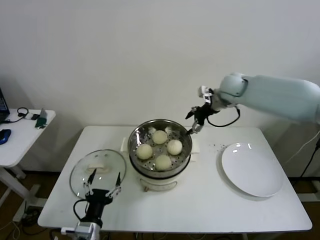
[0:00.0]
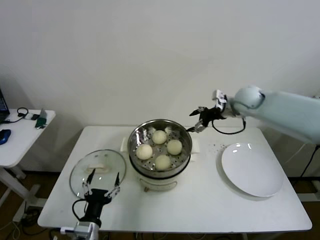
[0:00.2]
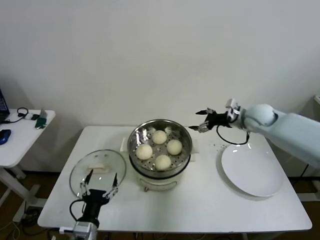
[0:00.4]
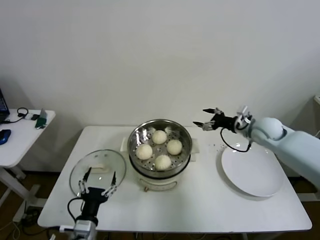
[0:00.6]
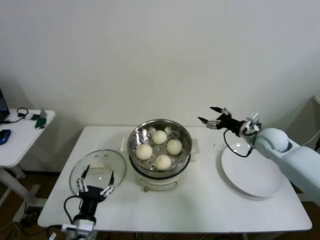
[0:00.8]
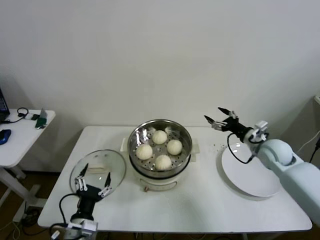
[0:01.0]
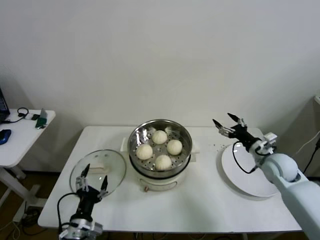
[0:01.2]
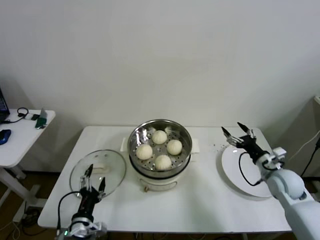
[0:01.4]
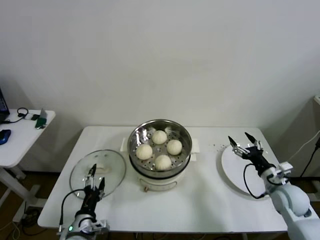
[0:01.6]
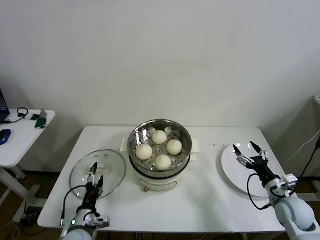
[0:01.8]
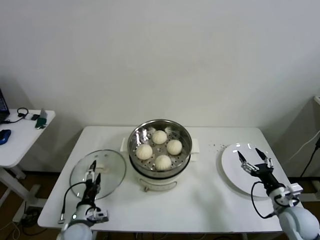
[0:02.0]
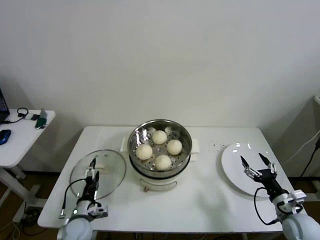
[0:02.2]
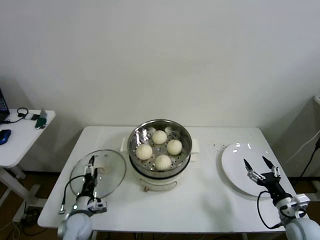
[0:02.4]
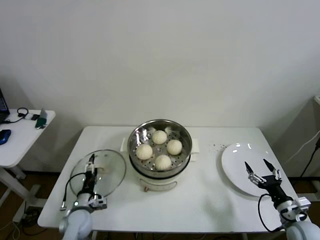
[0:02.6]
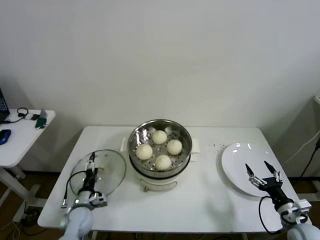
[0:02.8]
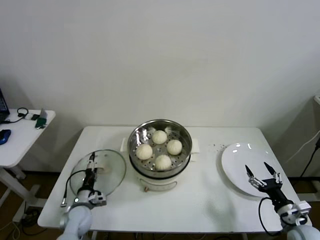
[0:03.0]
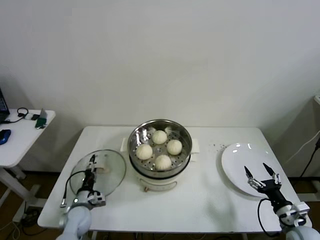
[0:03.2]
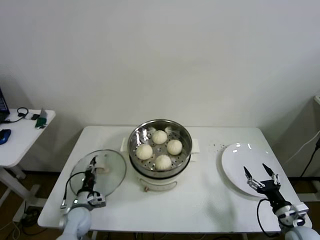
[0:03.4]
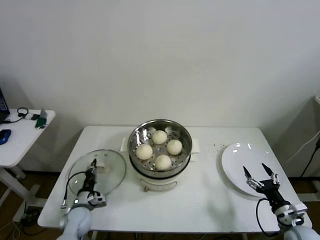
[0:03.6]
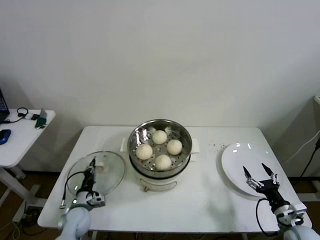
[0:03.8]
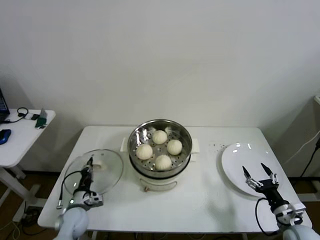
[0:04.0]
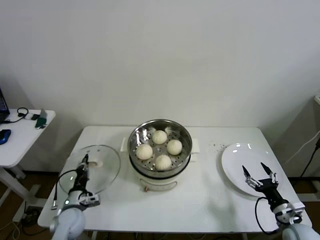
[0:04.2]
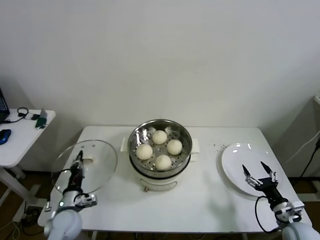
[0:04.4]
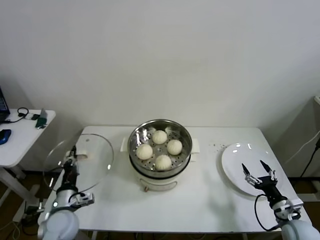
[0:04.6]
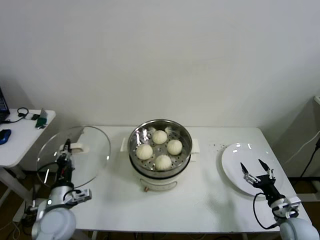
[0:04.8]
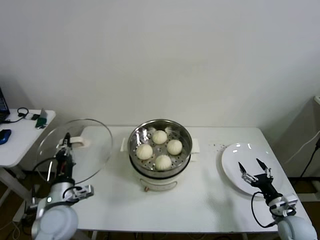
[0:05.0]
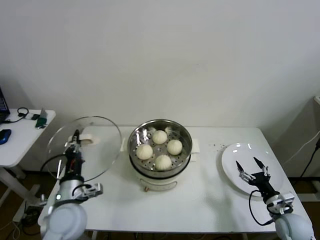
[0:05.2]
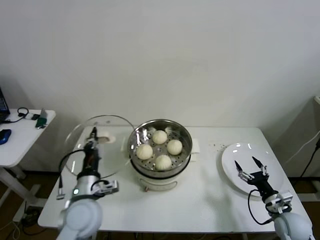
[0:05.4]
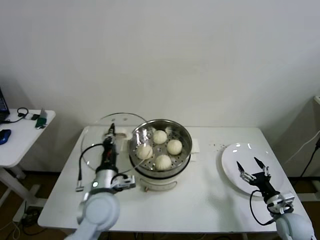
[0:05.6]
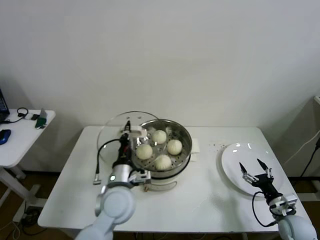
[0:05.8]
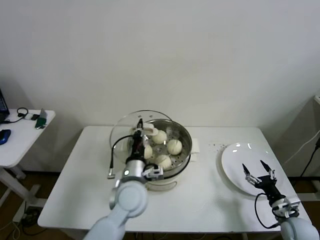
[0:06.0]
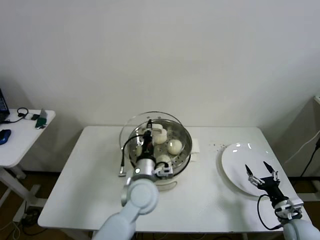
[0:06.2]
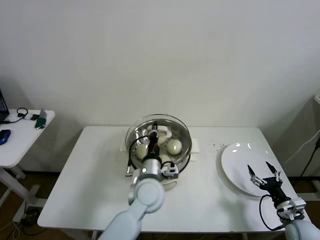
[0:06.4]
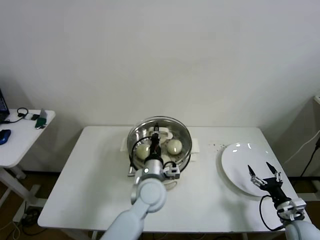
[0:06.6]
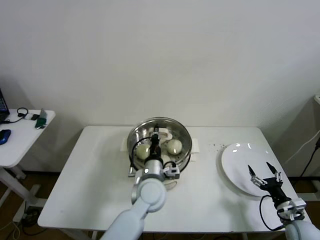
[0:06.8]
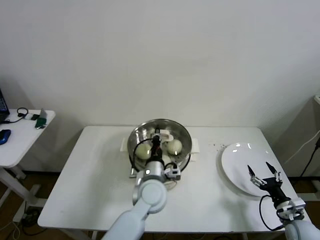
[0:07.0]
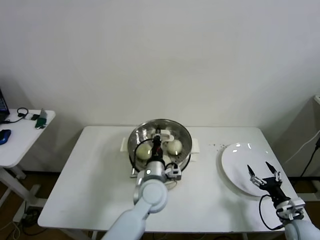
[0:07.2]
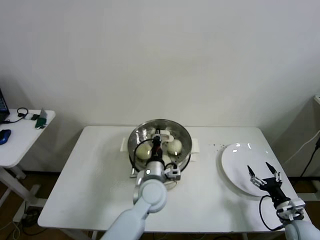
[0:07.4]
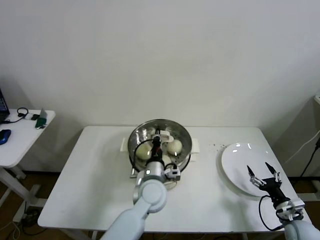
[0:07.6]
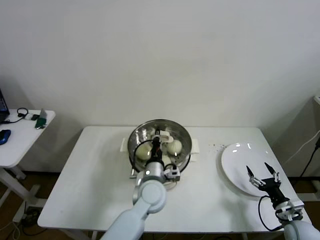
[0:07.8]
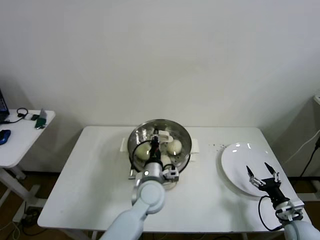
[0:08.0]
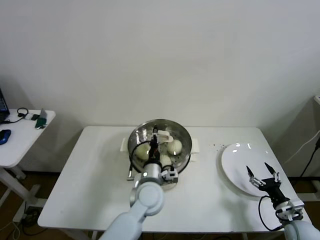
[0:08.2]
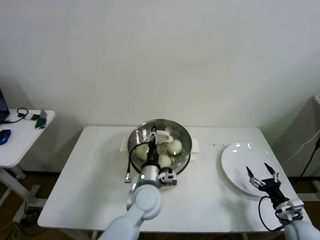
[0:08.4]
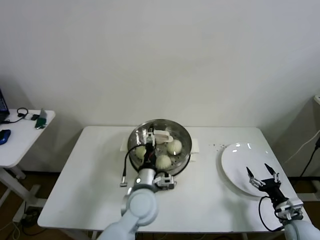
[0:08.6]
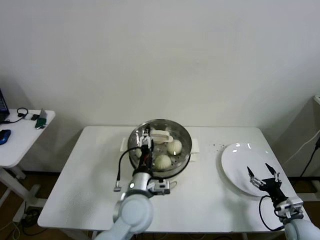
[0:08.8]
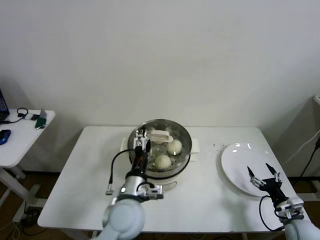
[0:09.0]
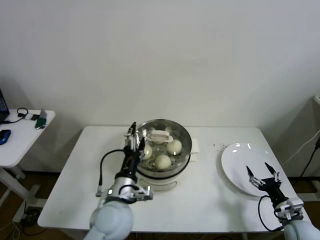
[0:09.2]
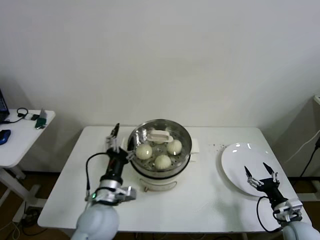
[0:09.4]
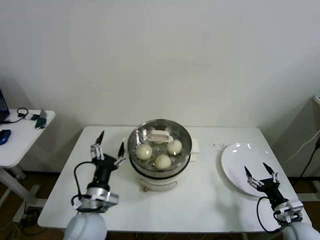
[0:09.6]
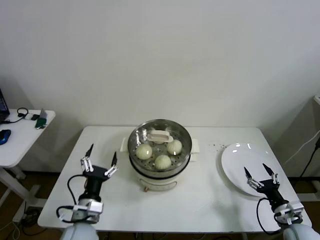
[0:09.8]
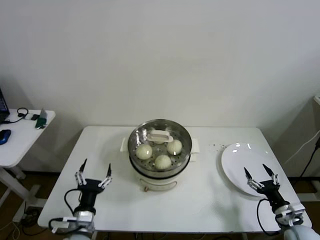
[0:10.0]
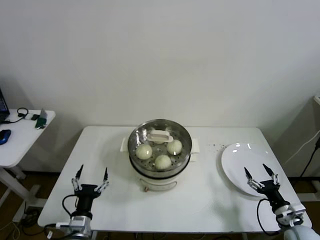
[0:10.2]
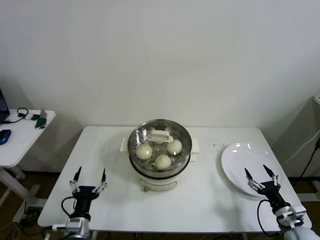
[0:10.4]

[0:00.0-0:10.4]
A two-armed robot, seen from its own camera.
Step, 0:00.0 to 0:03.6: Grasp the pot lid with left gripper.
Step, 0:03.8 to 0:08.8: Place the pot lid on the steamer with left gripper.
0:00.0 to 0:01.4: The right gripper is displaced downward, backward and to the right by some 35 cm.
0:01.4 to 0:03.0: The right gripper goes approximately 15 cm backward and downward. The left gripper moves forward, downward and to the left, approximately 15 cm.
0:03.0 to 0:04.4: The left gripper is displaced upward by roughly 5 cm, and closes.
0:04.4 to 0:06.0: The left gripper heads to the right and upward, covering some 25 cm.
0:06.0 to 0:07.4: The left gripper moves to the right, some 5 cm.
0:07.4 to 0:09.0: The left gripper is displaced backward and to the left by about 10 cm, and opens its fingers.
0:09.0 to 0:10.4: The left gripper is displaced to the left, downward and backward by roughly 25 cm.

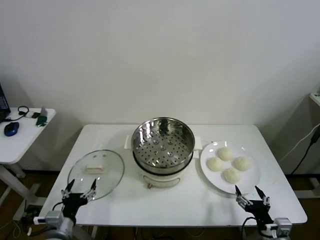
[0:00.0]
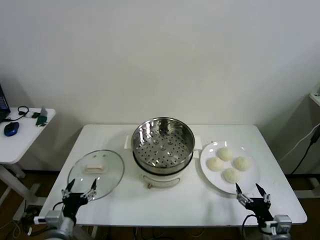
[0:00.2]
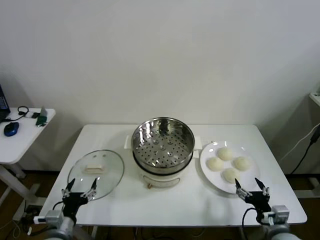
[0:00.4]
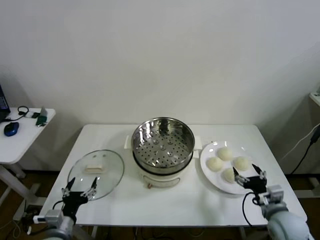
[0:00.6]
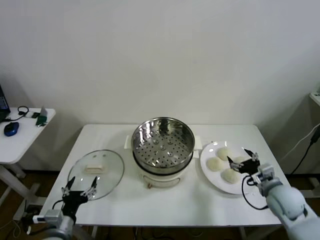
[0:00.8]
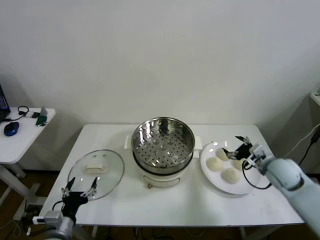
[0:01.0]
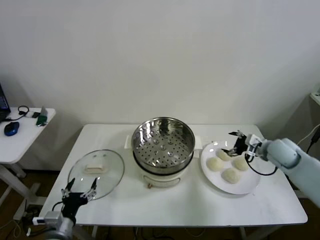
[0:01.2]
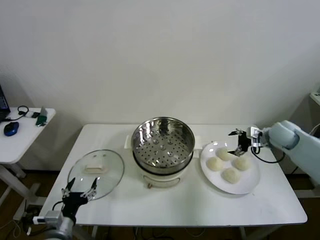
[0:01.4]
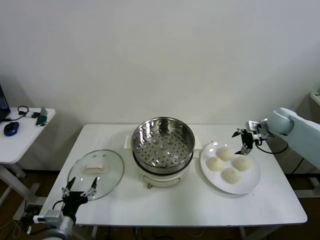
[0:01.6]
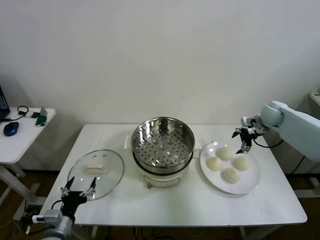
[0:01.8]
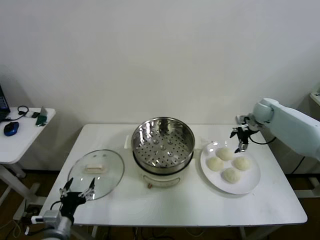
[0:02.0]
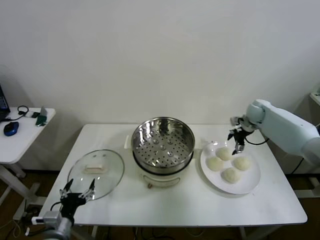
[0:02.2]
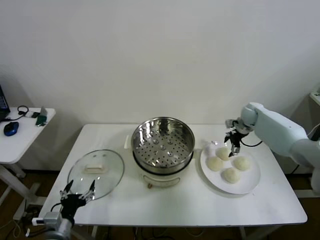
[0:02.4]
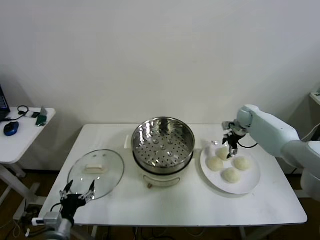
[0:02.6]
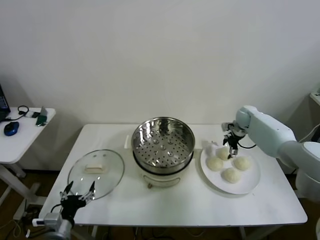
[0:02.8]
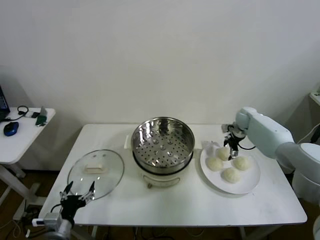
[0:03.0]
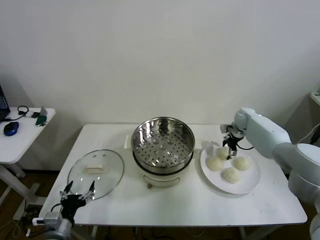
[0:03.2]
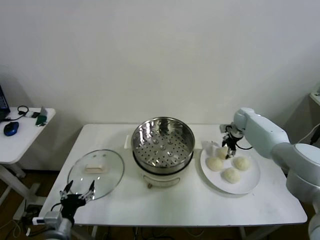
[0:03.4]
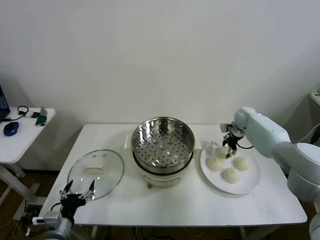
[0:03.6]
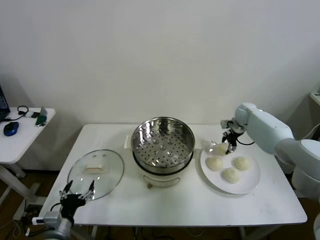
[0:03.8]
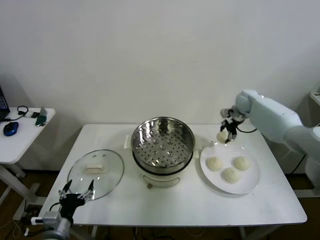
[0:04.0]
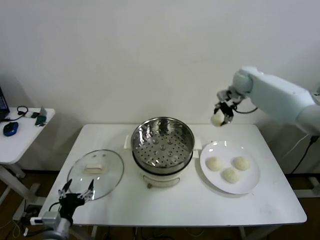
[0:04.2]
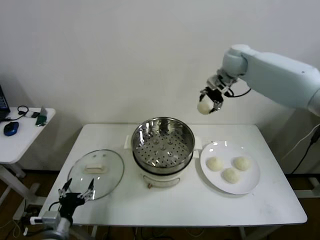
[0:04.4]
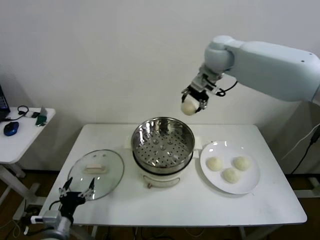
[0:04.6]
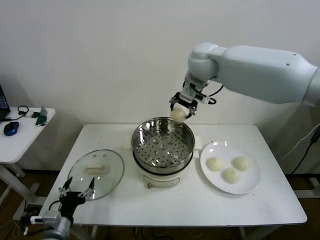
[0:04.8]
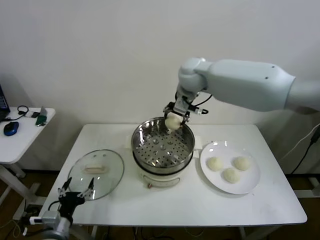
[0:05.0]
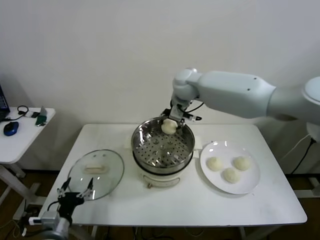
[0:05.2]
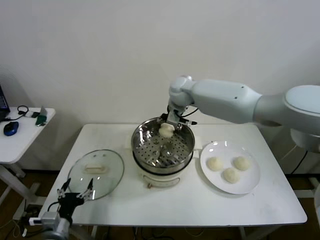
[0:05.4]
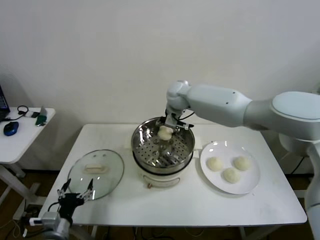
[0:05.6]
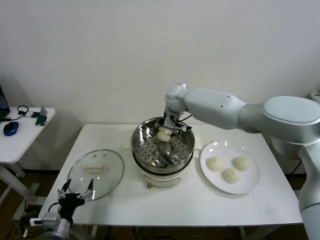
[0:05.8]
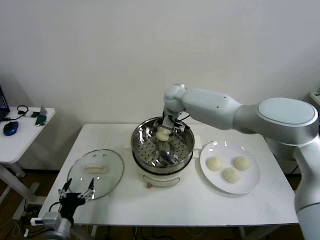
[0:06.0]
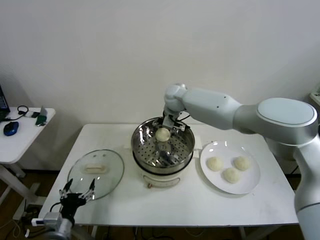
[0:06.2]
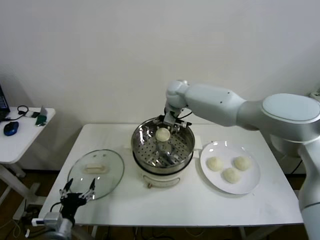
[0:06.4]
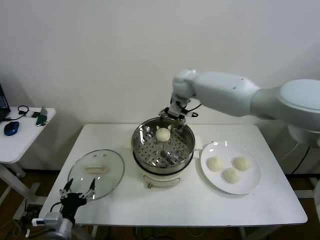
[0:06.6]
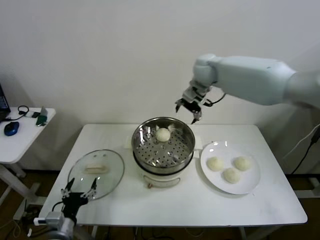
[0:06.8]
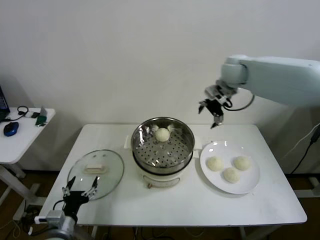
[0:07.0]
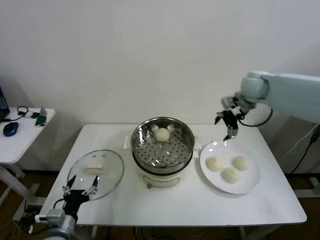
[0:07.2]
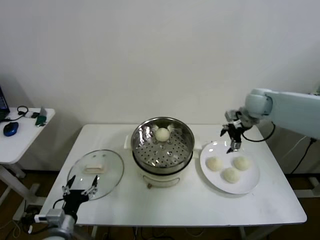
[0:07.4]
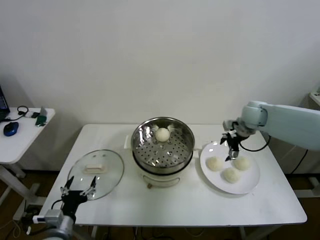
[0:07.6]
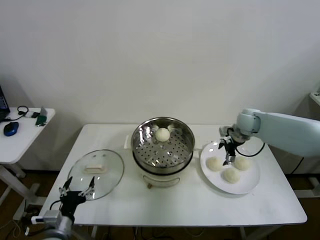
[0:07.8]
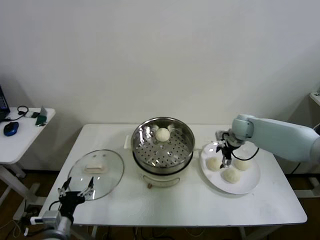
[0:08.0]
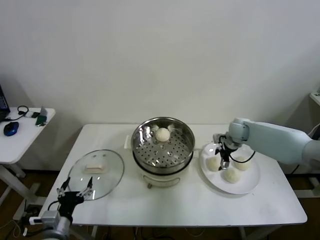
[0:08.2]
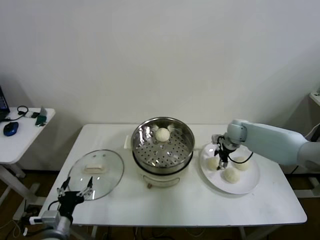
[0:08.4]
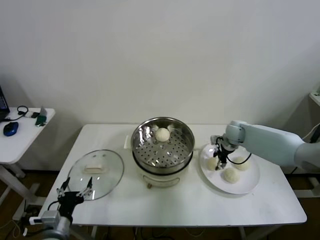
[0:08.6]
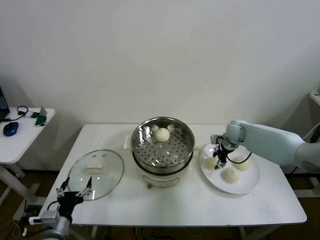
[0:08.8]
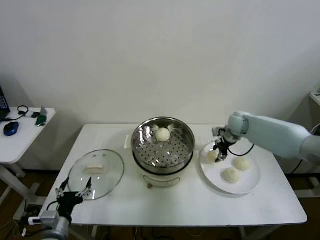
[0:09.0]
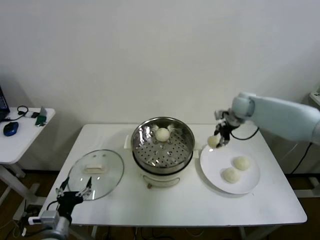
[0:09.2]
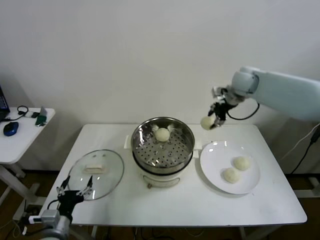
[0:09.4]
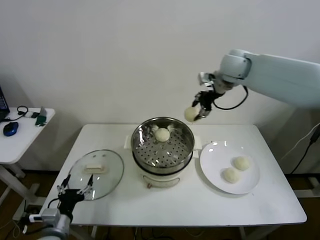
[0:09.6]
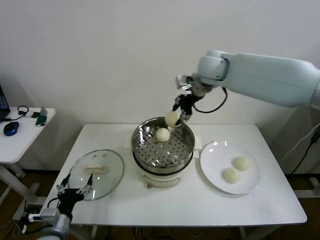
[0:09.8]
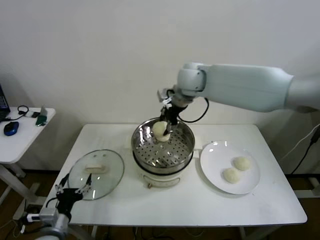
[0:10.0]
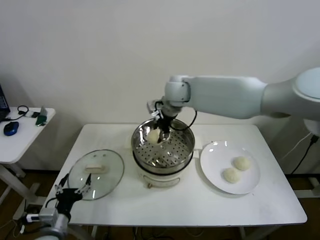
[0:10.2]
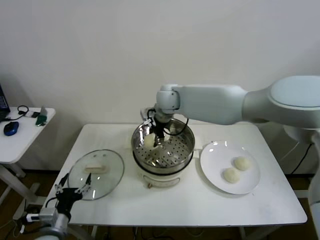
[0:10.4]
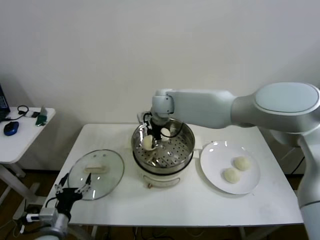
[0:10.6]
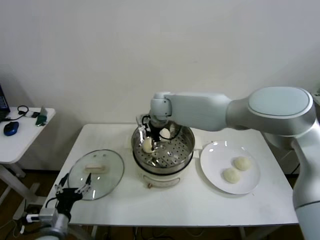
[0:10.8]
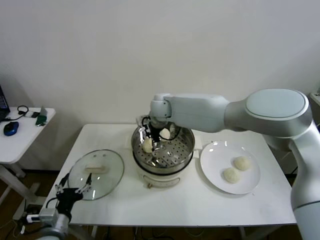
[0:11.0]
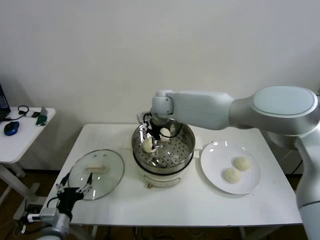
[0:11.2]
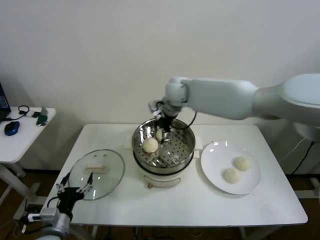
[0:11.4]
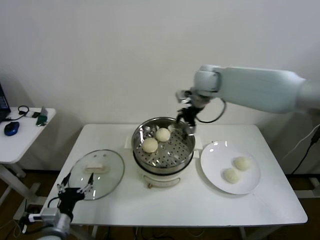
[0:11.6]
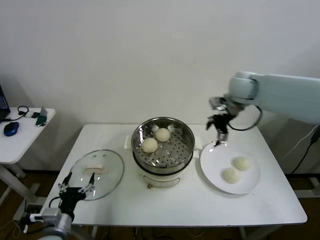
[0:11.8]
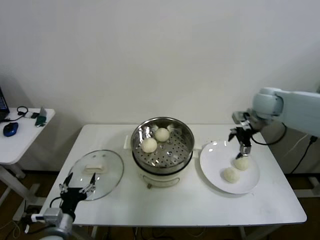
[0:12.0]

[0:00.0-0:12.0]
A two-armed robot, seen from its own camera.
Step, 0:00.0 to 0:03.4: Grasp the baozi in the plate with right gripper.
Step, 0:03.6 to 0:06.2: Place the baozi on the steamer with right gripper.
Step, 0:06.4 to 0:08.6: Grasp the baozi in the plate with right gripper.
Step, 0:08.8 to 0:10.6: Place the baozi on the steamer with right gripper.
0:01.6 to 0:03.0: The right gripper travels downward, forward and to the left by approximately 15 cm.
0:03.0 to 0:04.4: The right gripper moves upward and to the left, some 35 cm, and closes.
0:04.4 to 0:06.0: The right gripper heads downward and to the left, covering about 25 cm, and opens.
0:06.0 to 0:07.6: The right gripper is displaced to the right by roughly 30 cm.
0:07.6 to 0:09.0: The right gripper moves roughly 10 cm downward and comes back, and closes up.
0:09.0 to 0:10.4: The right gripper goes roughly 30 cm to the left.
0:10.4 to 0:12.0: The right gripper goes about 35 cm to the right, and opens its fingers.
